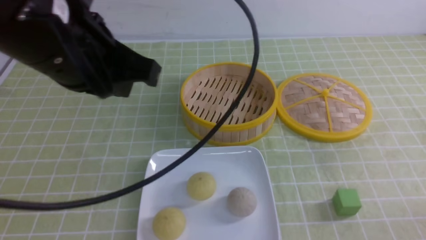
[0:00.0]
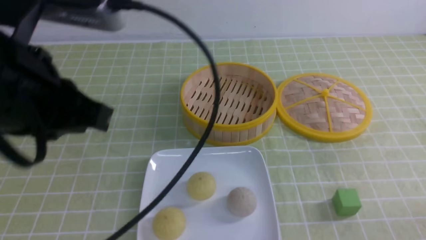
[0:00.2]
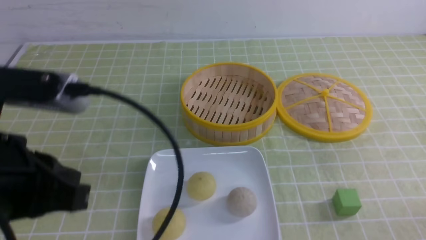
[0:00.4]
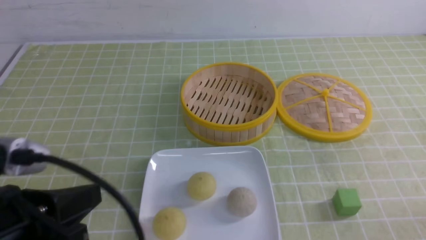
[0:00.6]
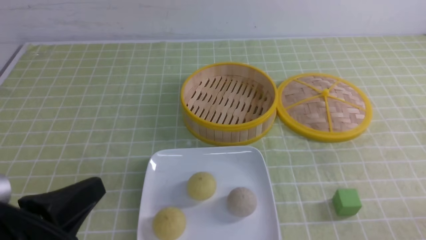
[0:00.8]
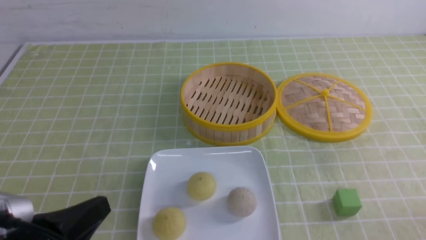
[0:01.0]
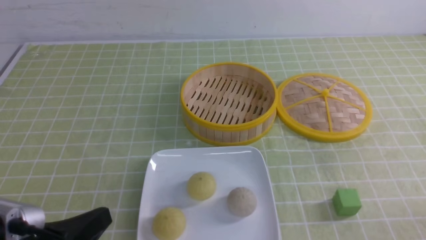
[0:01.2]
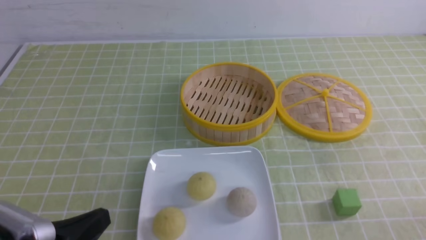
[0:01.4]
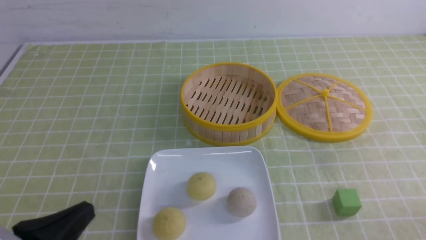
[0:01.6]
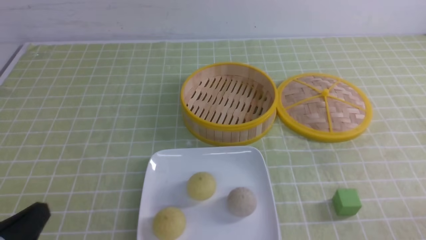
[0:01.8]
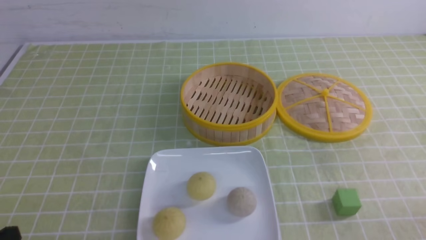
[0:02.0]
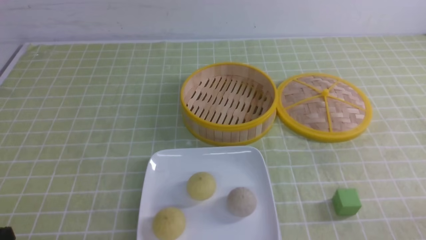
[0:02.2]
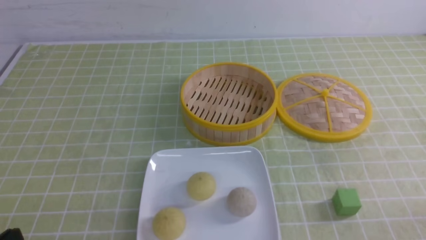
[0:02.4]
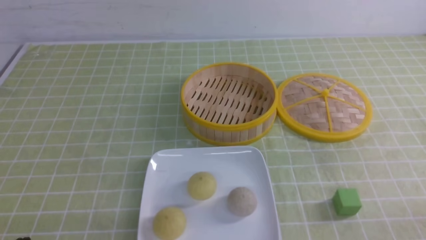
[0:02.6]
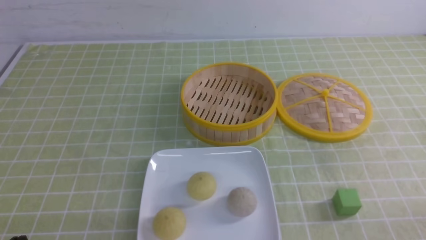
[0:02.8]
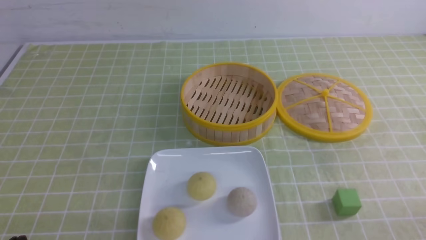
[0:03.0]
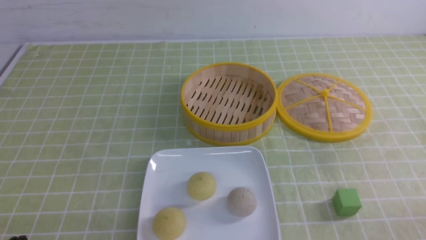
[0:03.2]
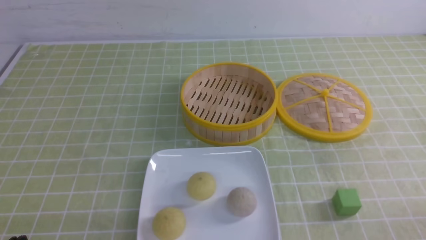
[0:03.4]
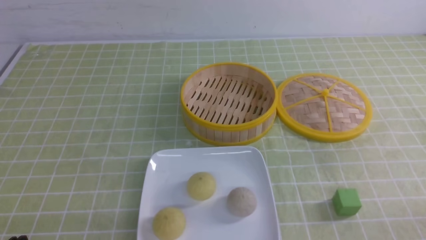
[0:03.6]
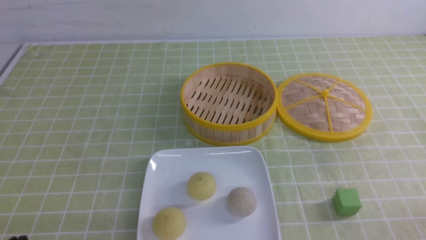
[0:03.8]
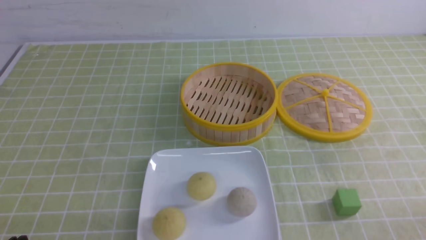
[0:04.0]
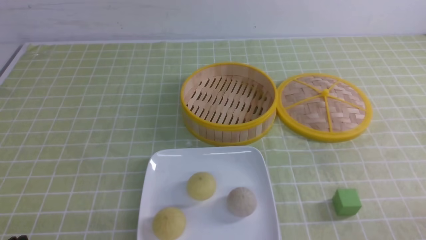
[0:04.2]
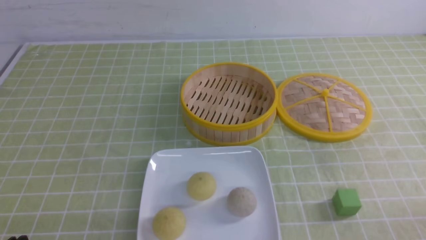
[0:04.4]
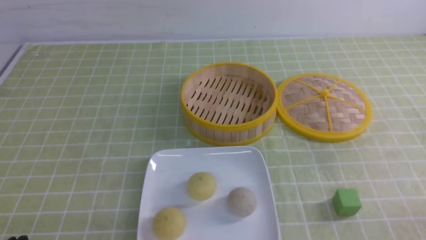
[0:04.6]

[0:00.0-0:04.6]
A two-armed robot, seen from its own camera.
0:00.0 to 0:01.6: The left gripper travels downward, backward and to the left by roughly 25 cm.
0:01.6 to 0:03.0: The left gripper shifts approximately 5 cm downward.
0:03.0 to 0:04.6: Both grippers stay about where they are.
